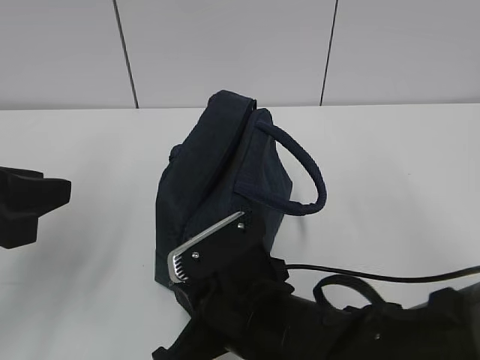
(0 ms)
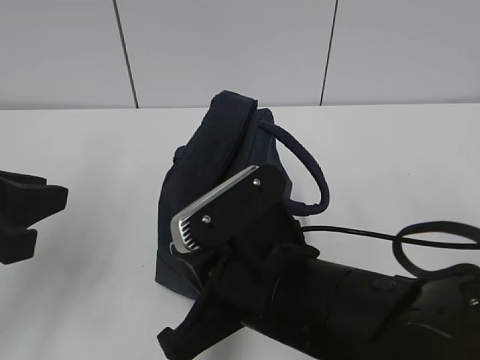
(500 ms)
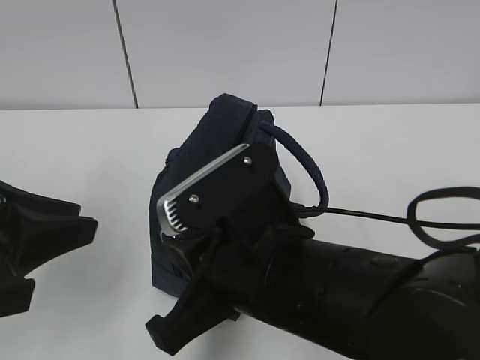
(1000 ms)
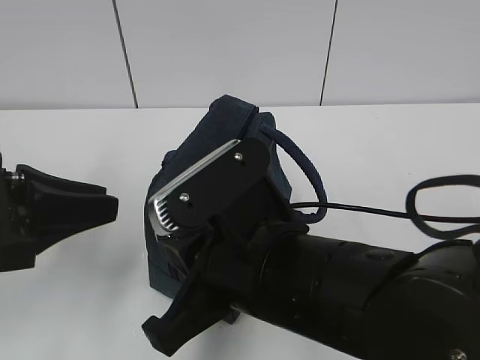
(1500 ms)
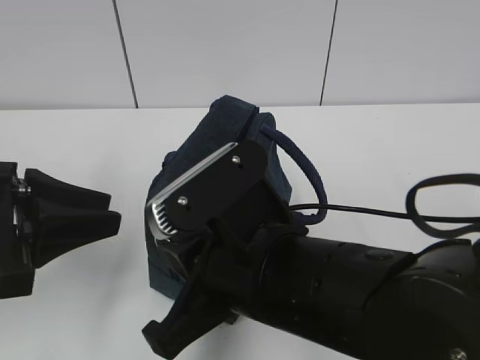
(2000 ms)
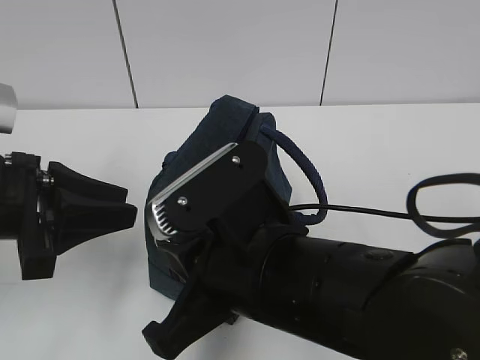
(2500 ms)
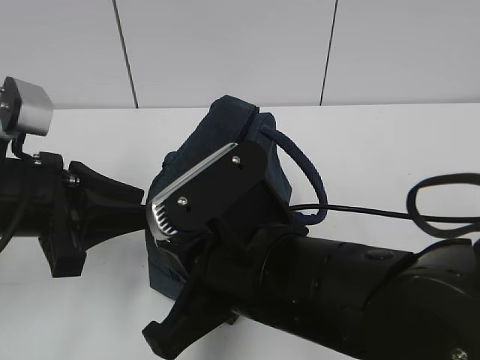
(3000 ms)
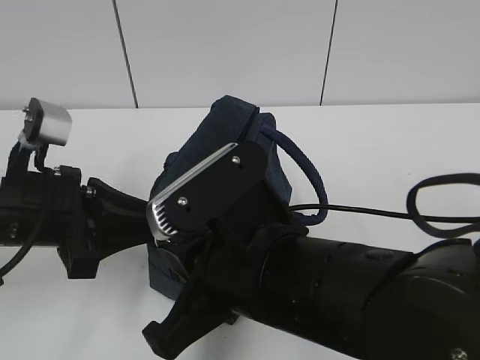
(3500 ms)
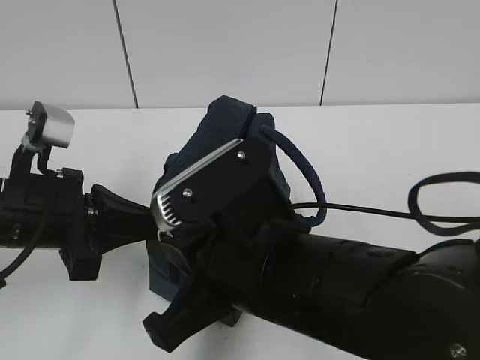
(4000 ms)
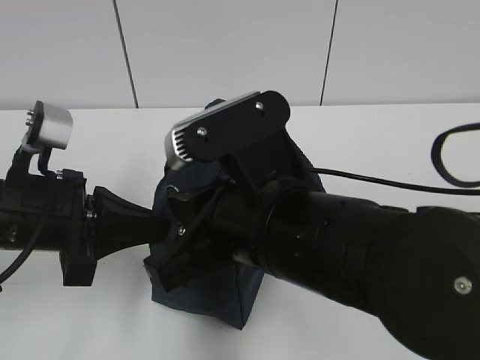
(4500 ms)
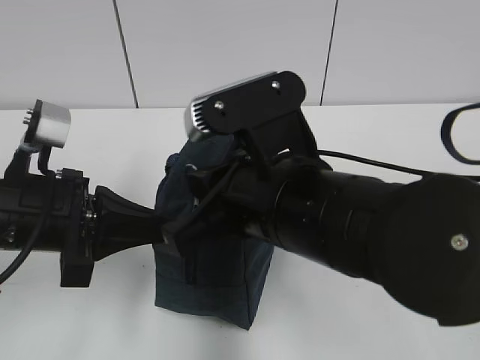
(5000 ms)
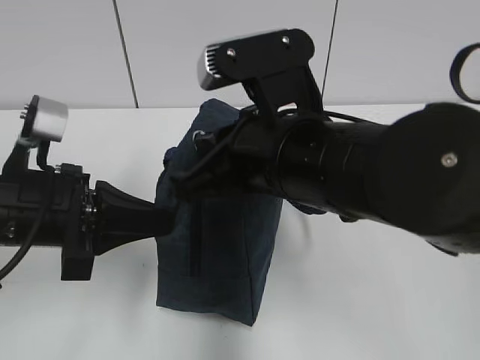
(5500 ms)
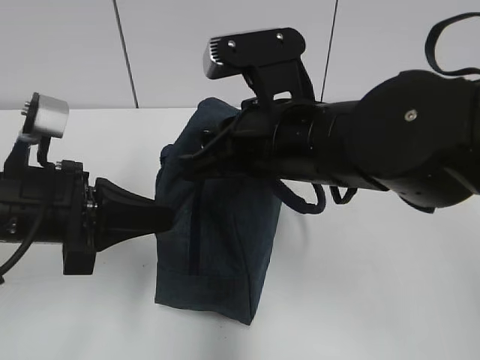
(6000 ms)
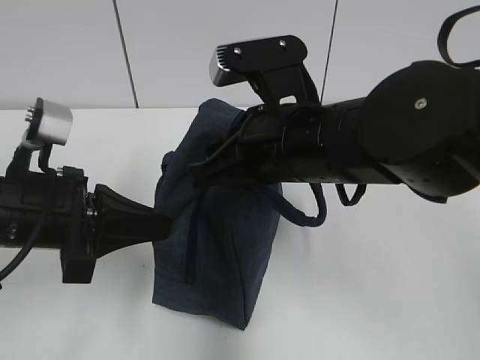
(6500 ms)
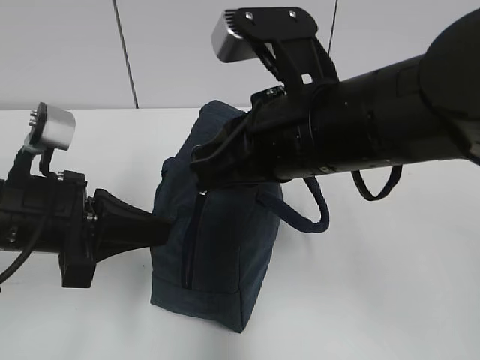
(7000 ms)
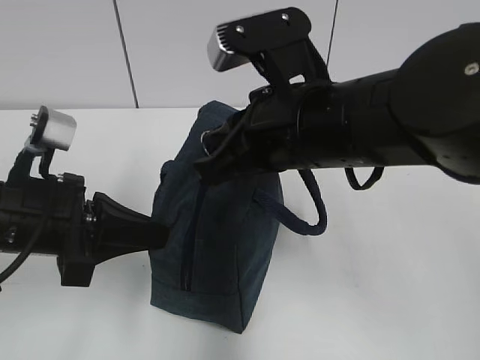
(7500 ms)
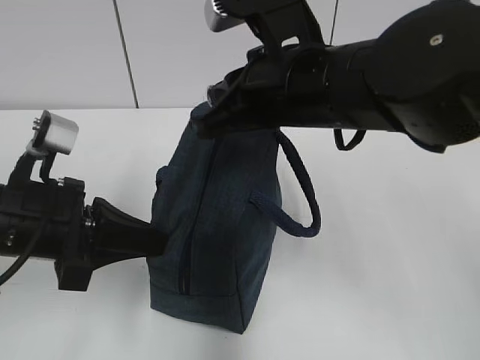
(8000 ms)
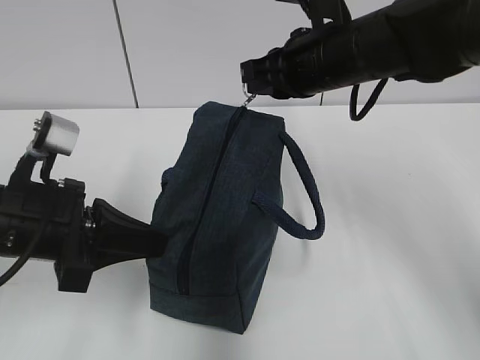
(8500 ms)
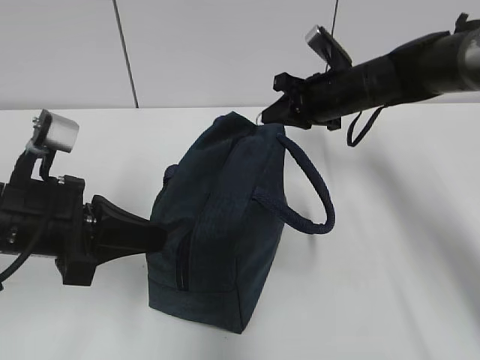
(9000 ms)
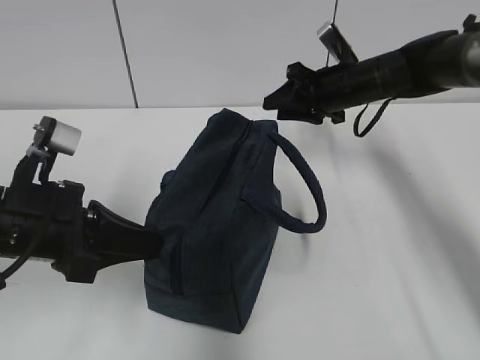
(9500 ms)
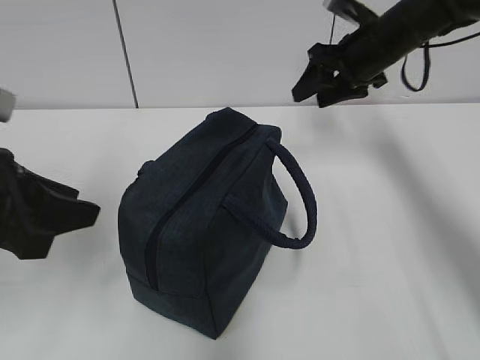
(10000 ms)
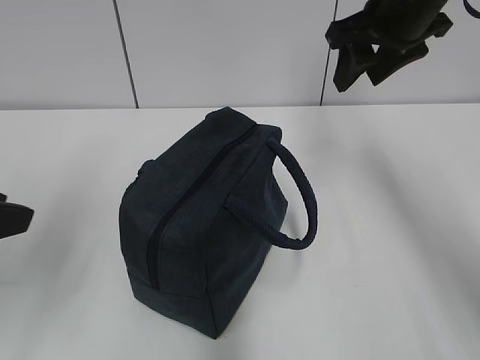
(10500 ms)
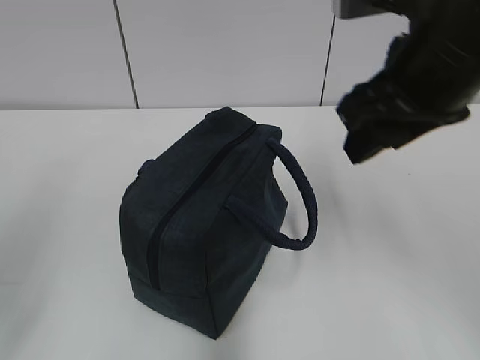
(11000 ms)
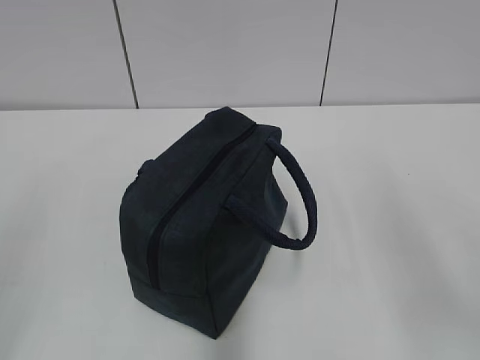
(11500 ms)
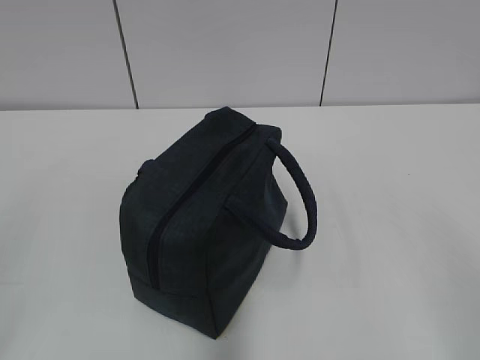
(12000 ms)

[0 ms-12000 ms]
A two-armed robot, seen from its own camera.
Step, 0 ms to 9000 ms: Pull the zipper with your right hand.
0 ms to 2000 ms: The right gripper travels upward by about 10 cm.
2000 ms to 4000 ms: The left gripper ends up about 5 cm from where it was, and closes its fingers.
4000 ms to 6000 ms: The right gripper travels forward by some 10 cm.
8000 ms to 10000 ms: The right gripper goes roughly 25 cm forward and to the right, and opens up, while the left gripper changes place by roughly 5 cm, and opens its fingers.
10000 ms to 12000 ms: The right gripper goes approximately 50 cm backward; the left gripper travels backward by about 20 cm.

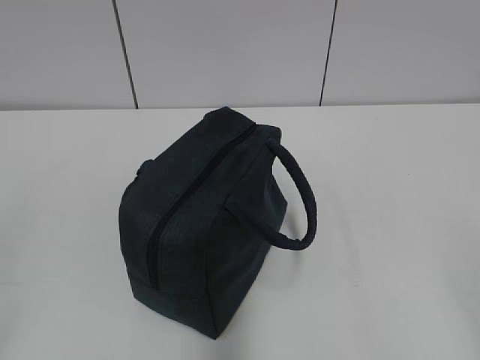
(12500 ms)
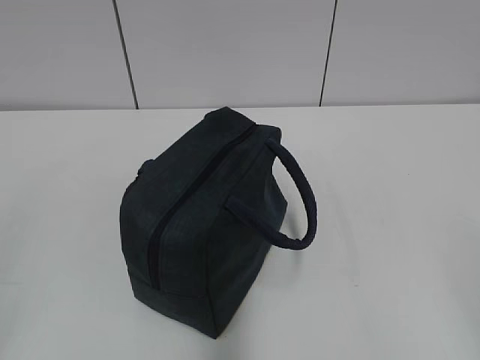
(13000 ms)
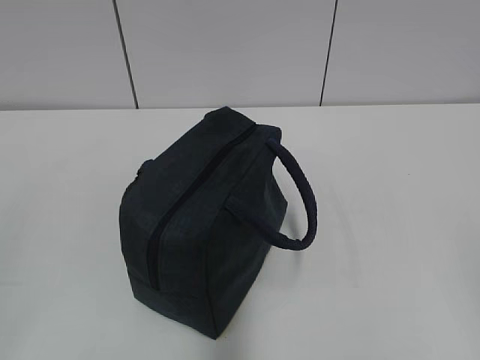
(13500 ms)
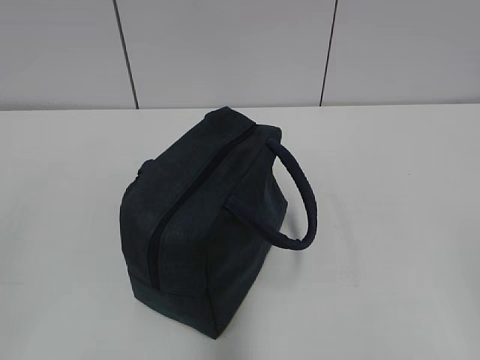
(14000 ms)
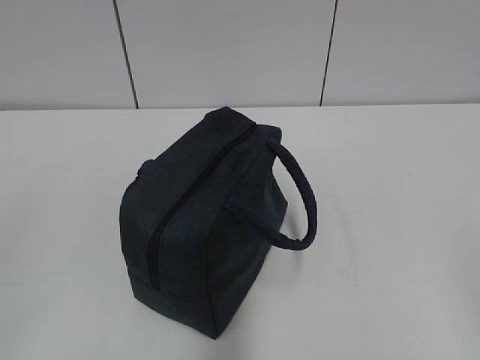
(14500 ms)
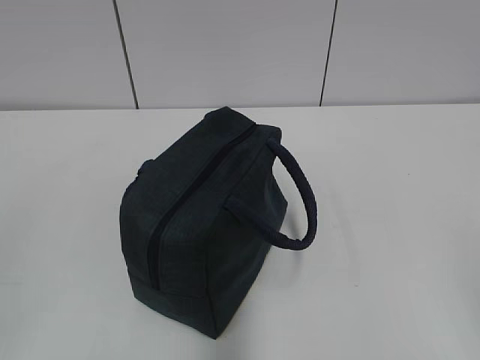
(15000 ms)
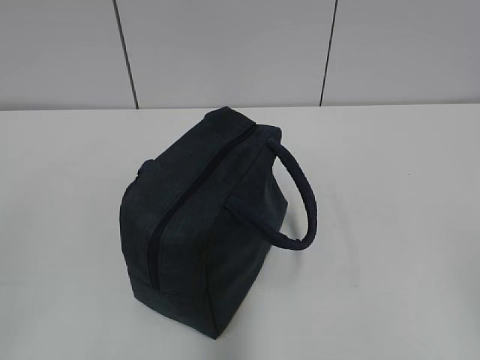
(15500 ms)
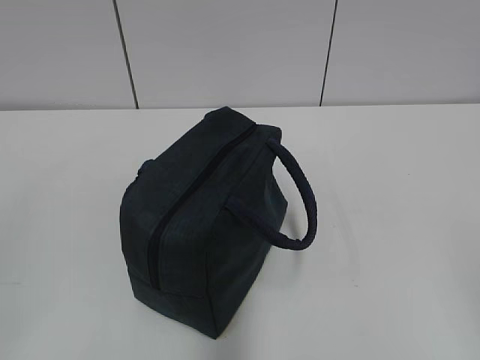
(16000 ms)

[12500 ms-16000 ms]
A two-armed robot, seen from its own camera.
14500 ms to 16000 ms: Both grippers stay put.

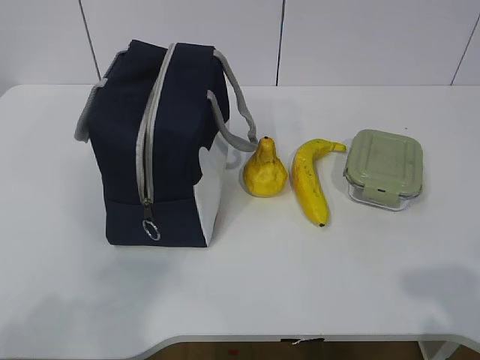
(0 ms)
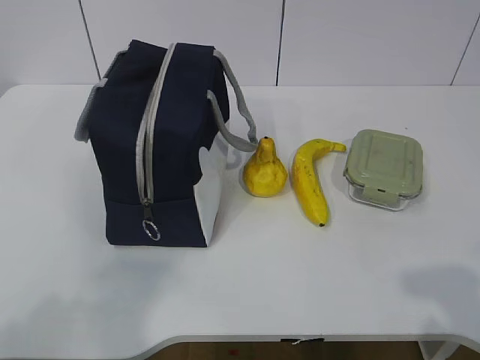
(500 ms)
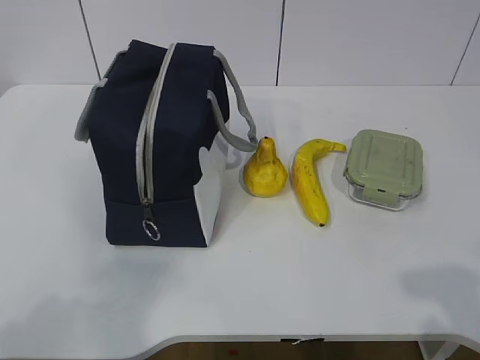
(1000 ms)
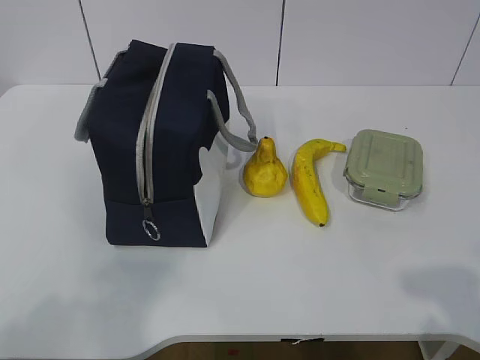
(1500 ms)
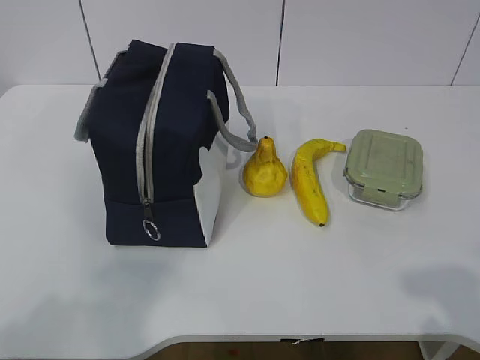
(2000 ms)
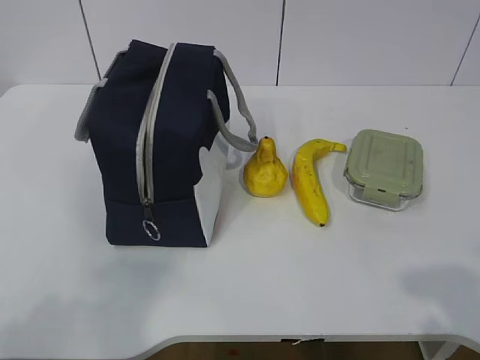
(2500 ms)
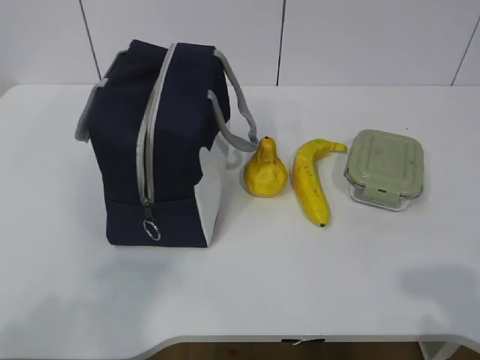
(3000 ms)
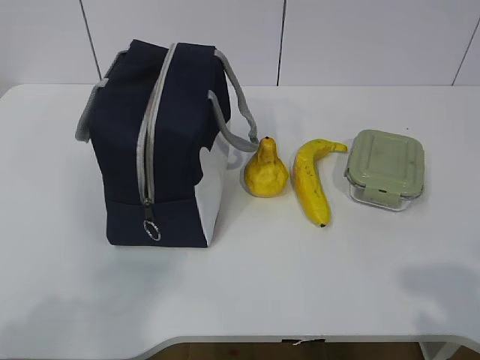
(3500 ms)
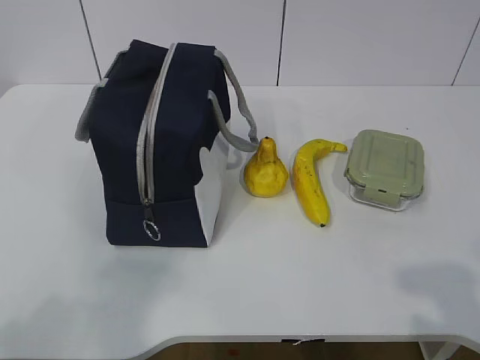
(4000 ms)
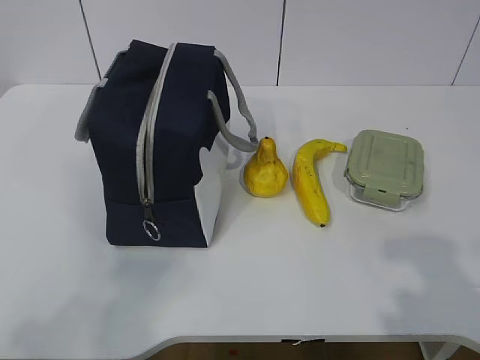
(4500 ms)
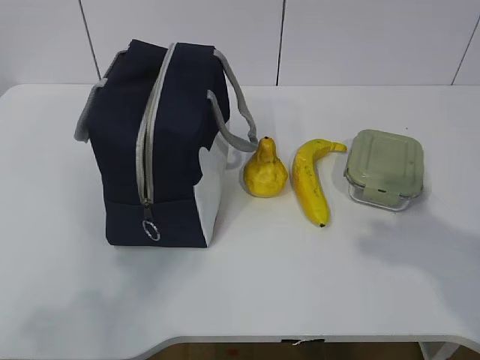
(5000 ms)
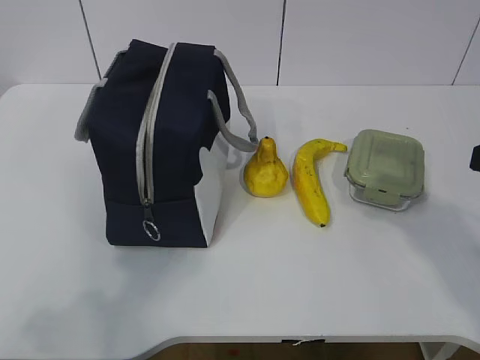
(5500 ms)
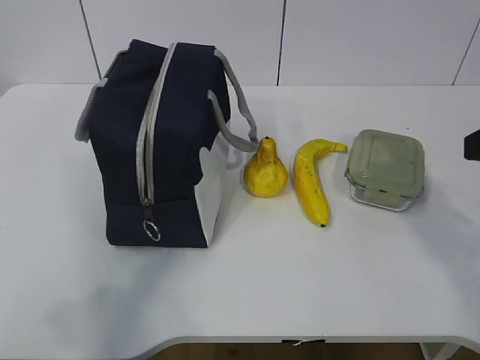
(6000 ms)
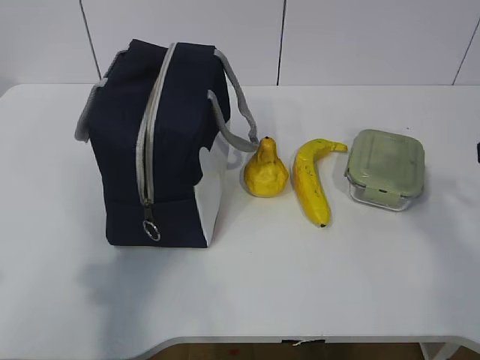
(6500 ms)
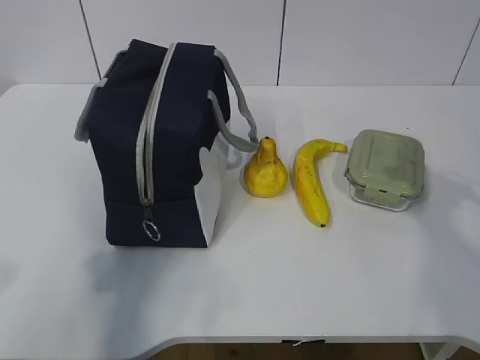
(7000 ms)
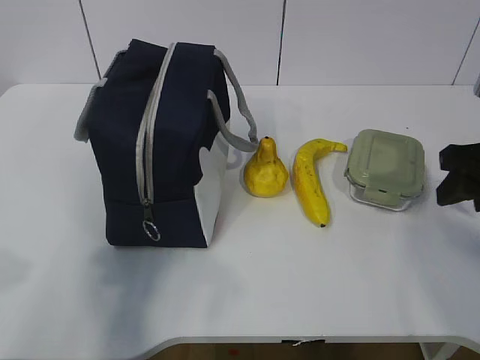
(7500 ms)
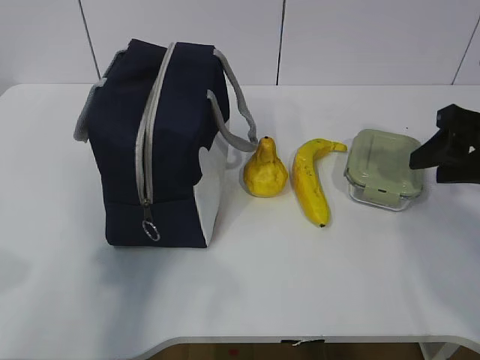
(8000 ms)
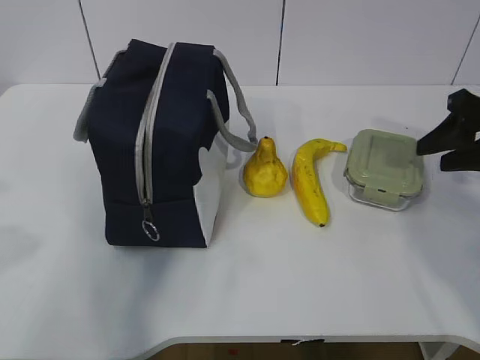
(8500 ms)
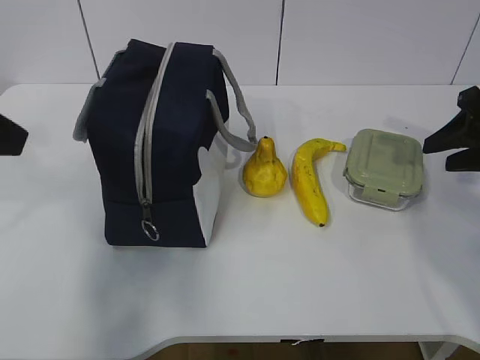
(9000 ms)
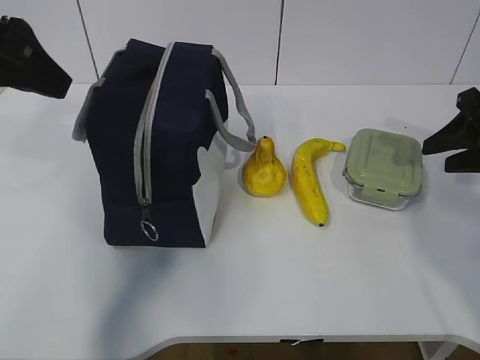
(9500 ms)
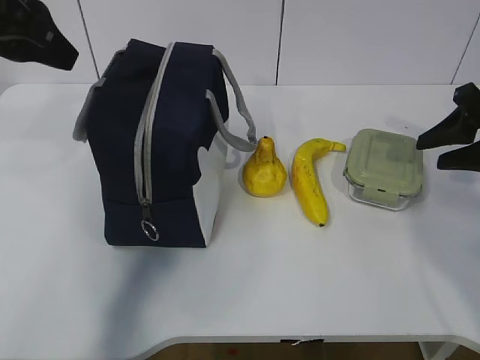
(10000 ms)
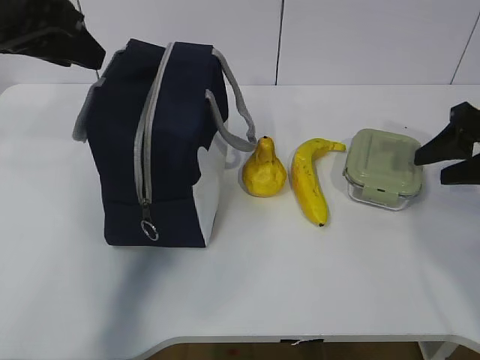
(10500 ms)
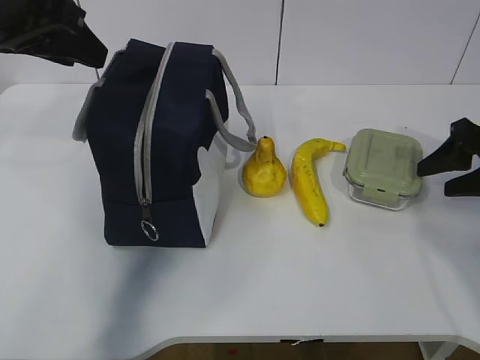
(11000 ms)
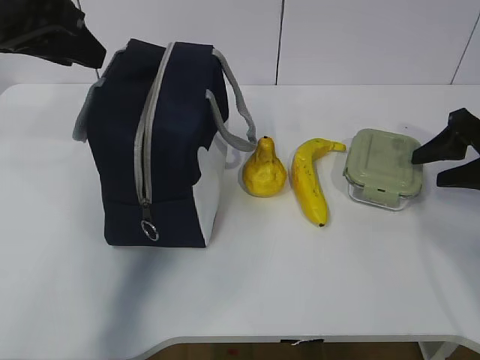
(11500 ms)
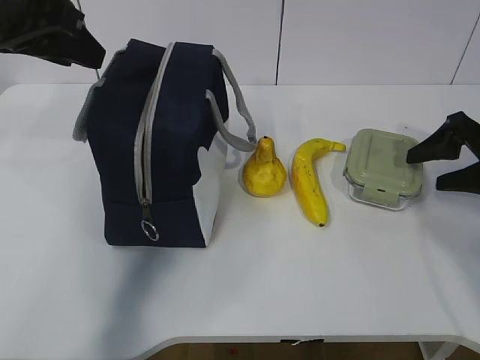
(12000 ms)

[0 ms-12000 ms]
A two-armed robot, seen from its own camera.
4000 ms to 6000 ms: The left gripper opens, while the right gripper travels forward by about 20 cm.
6000 ms to 8000 ms: The right gripper shifts some 10 cm forward and downward; the left gripper moves forward, approximately 10 cm.
8000 ms to 10000 ms: The left gripper travels forward by some 20 cm; the right gripper changes place by approximately 5 cm.
10000 ms to 12000 ms: The right gripper changes place by about 5 cm.
